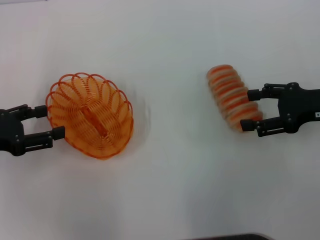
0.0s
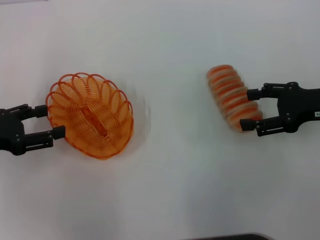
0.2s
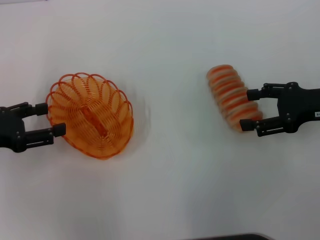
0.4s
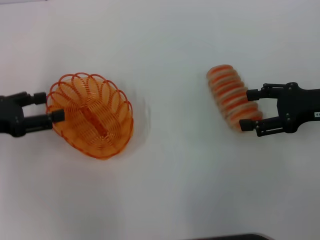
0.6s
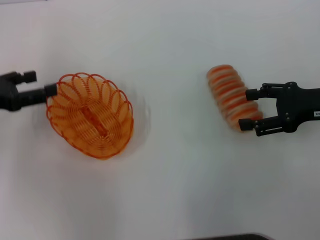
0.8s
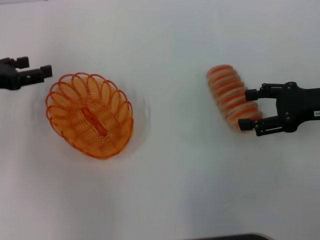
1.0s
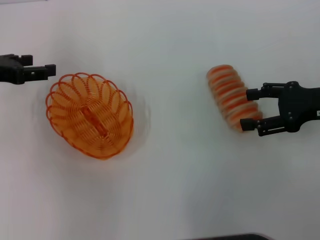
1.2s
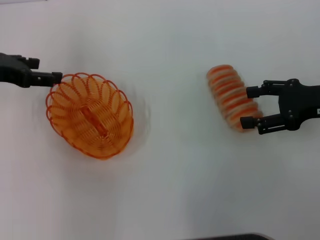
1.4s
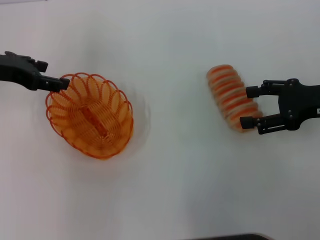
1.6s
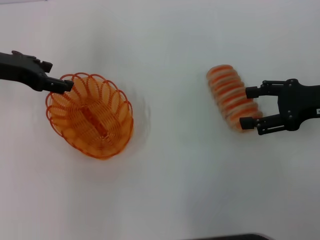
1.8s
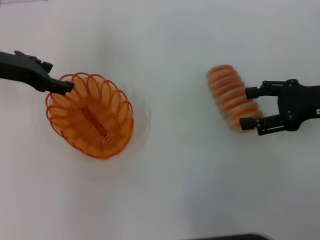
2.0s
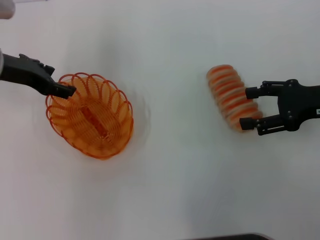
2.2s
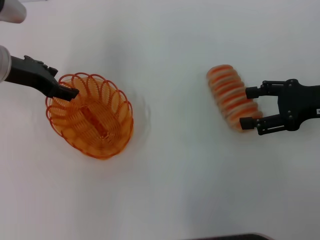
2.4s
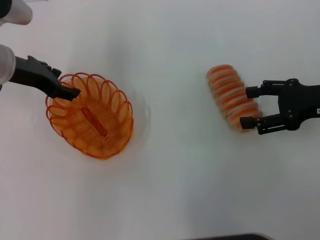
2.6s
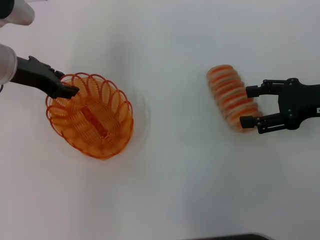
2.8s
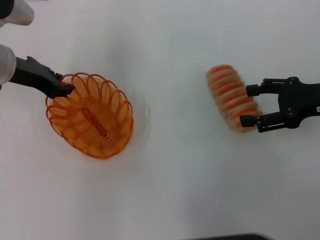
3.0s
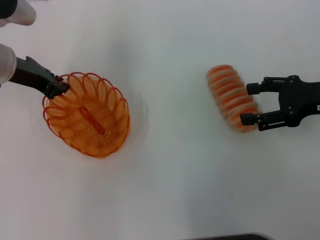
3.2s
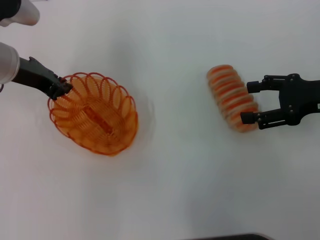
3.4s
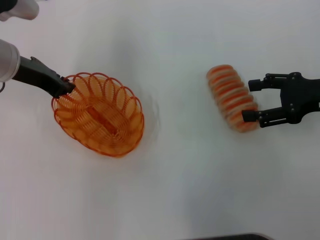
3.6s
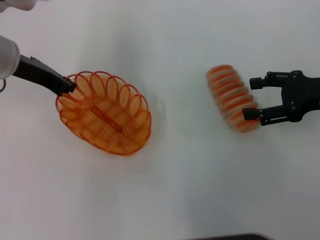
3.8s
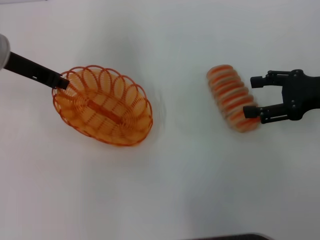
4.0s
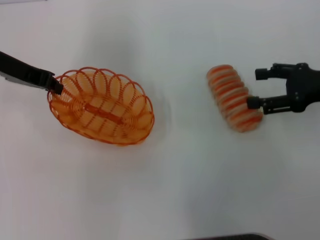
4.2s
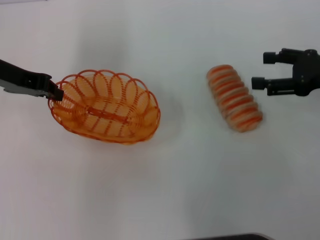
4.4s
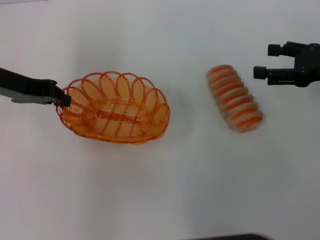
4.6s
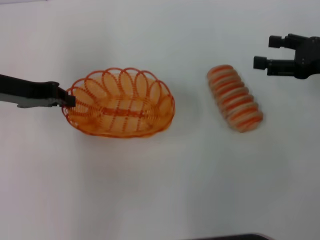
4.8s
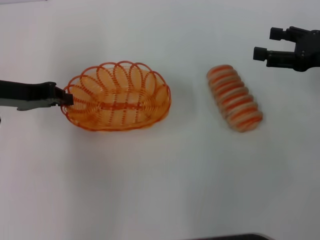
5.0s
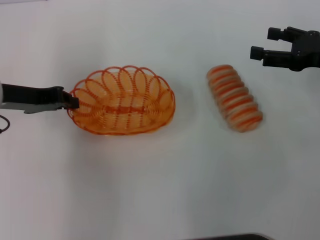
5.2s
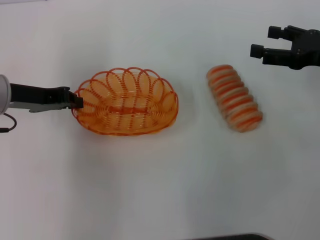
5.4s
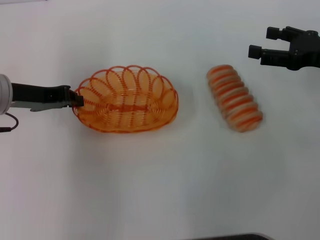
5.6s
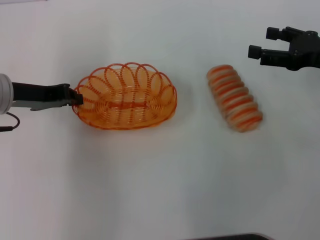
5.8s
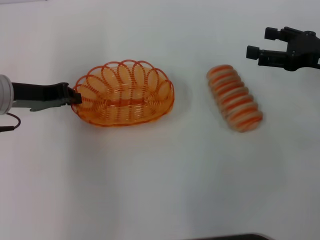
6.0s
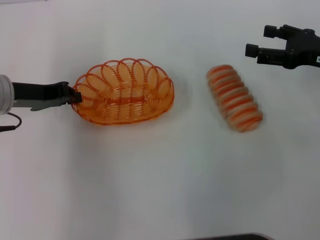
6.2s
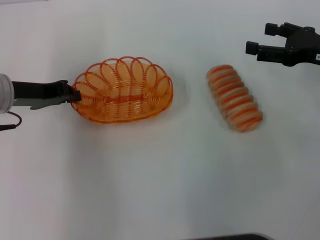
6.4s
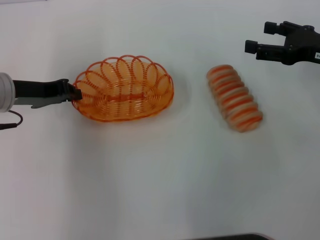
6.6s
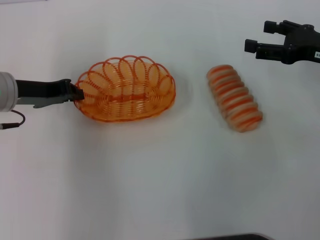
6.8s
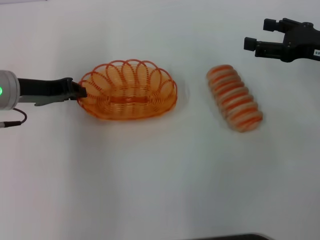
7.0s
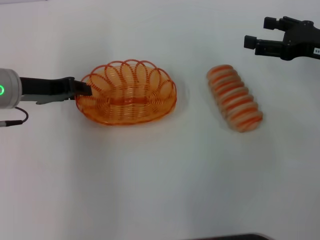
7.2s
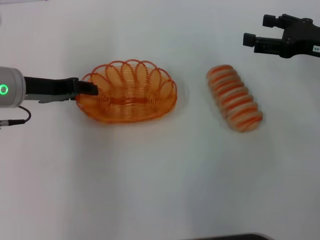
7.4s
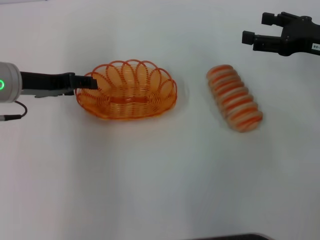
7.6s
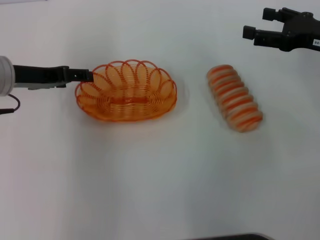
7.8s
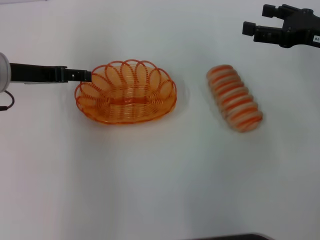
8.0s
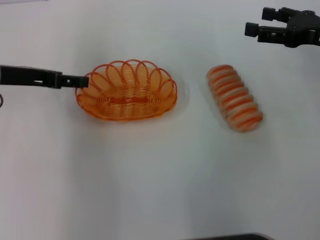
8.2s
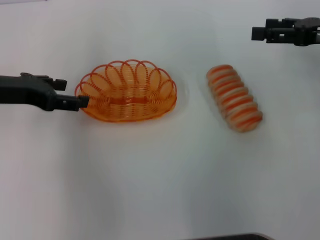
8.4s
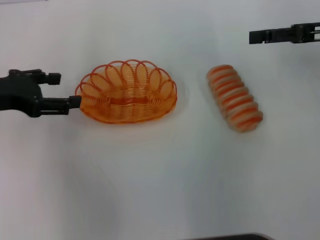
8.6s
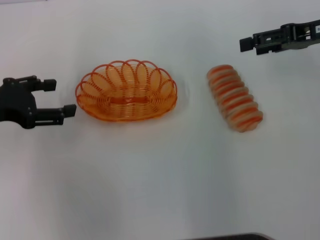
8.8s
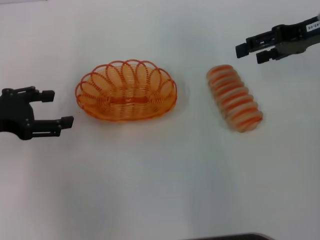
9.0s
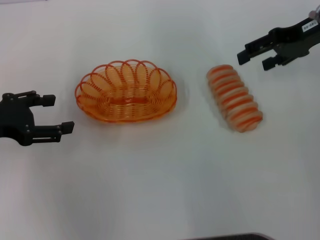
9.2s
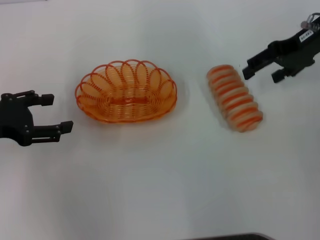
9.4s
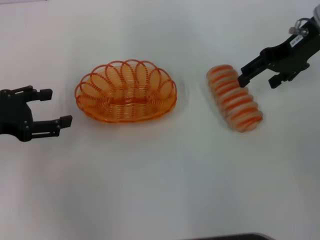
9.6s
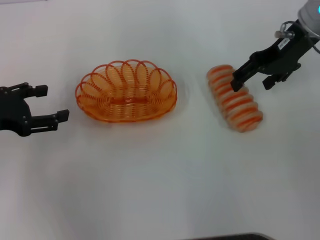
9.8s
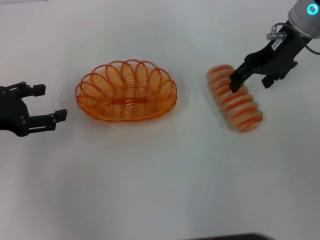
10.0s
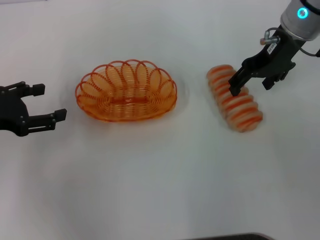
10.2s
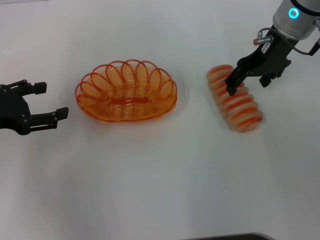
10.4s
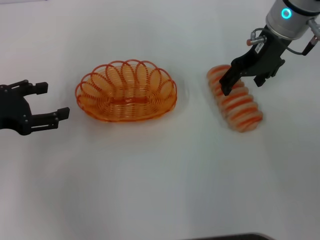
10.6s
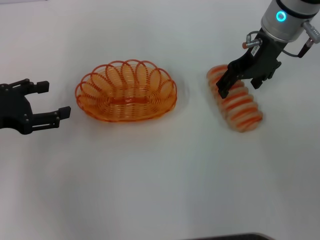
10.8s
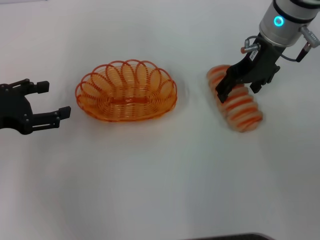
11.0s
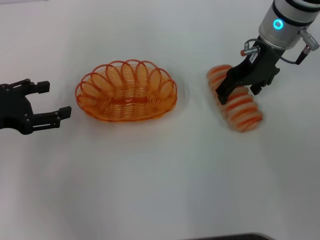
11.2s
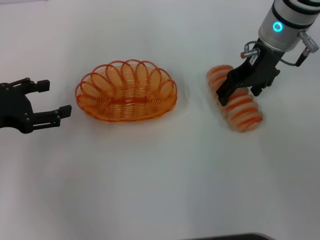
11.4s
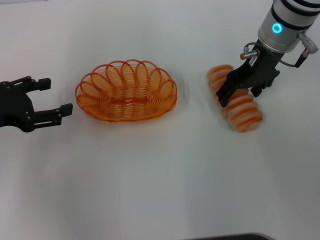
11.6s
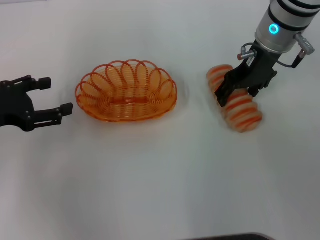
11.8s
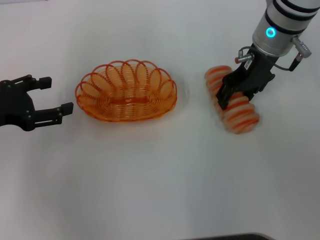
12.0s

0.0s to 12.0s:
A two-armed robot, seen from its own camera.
Step, 0.0s to 4.4s: Pick up the basket with the left gripper.
Step, 4.6s to 8.6s: Place the basket in the center of view with the left gripper.
0.0s to 1.6s: The left gripper goes about 15 cm forward and upward.
1.6s to 3.0s: The left gripper moves roughly 5 cm, and closes up.
3.0s to 4.4s: The left gripper shifts by some 5 cm, and closes.
4.4s to 6.0s: The left gripper travels downward by roughly 5 cm.
6.0s to 7.6s: The left gripper opens up.
7.6s to 9.0s: The left gripper goes roughly 10 cm to the left and backward, and opens. Meanwhile the right gripper is displaced upward and forward by approximately 10 cm.
9.0s to 10.4s: The right gripper shifts approximately 10 cm to the left.
10.4s to 12.0s: There are only small adjustments of the grippers.

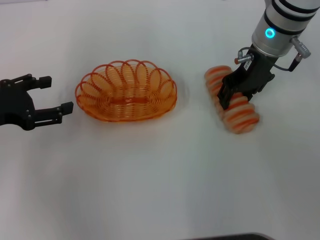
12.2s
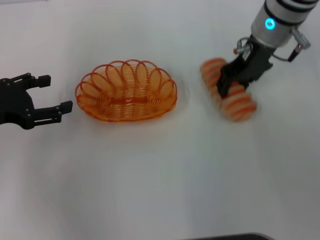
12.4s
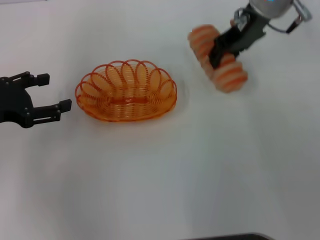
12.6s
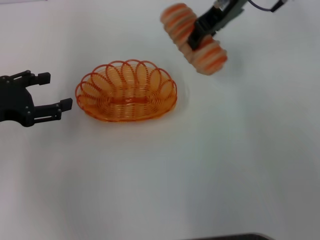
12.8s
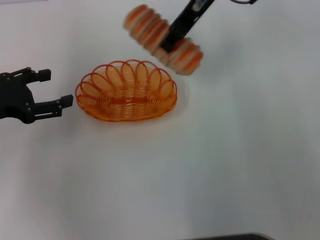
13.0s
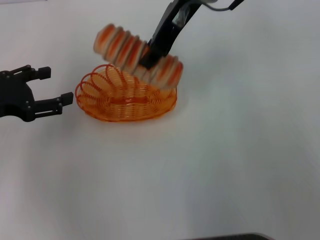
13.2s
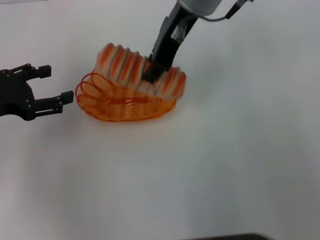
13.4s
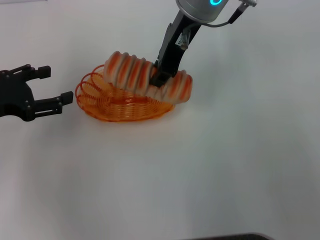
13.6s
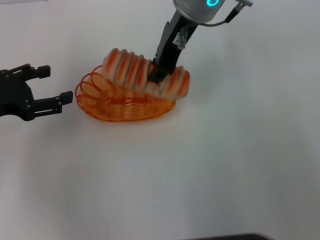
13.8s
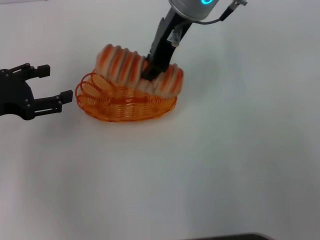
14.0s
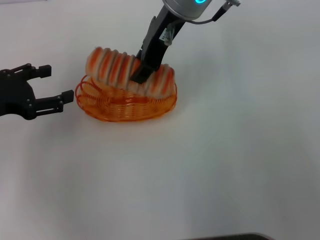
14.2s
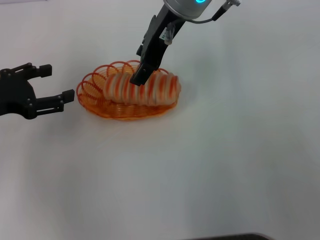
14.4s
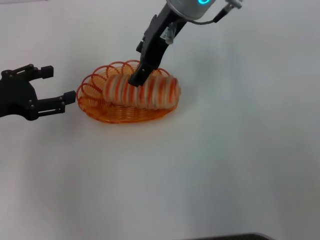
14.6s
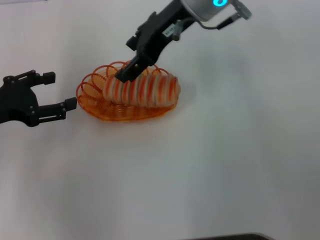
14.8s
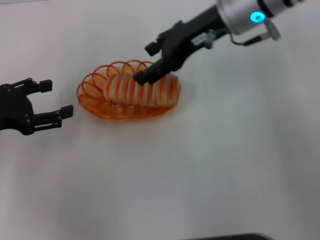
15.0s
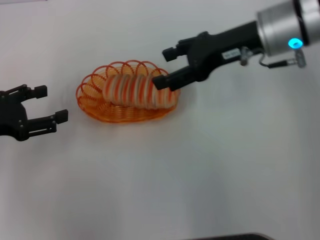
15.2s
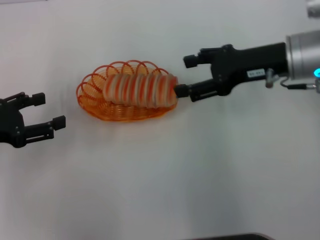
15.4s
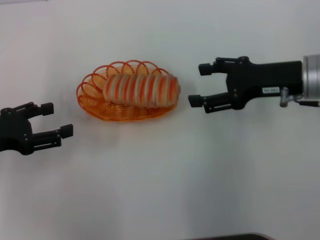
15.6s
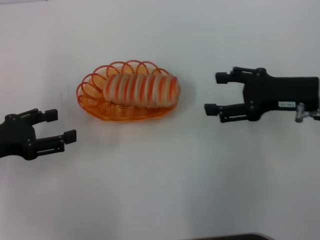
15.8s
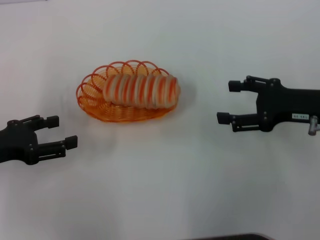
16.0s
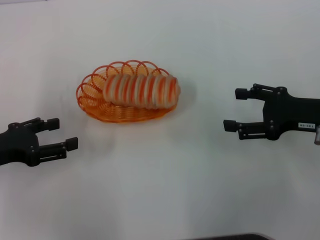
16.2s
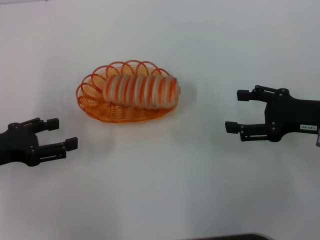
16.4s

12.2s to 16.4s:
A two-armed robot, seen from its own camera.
Step, 12.6s to 15.4s: Place the long bread into the basket with the right gripper.
12.2s to 13.6s: The right gripper is displaced to the left and upward by about 15 cm, and closes up.
13.6s to 15.0s: The right gripper shifts approximately 10 cm to the right, and opens its fingers.
15.0s to 16.4s: The right gripper travels to the right, backward and downward by about 25 cm.
